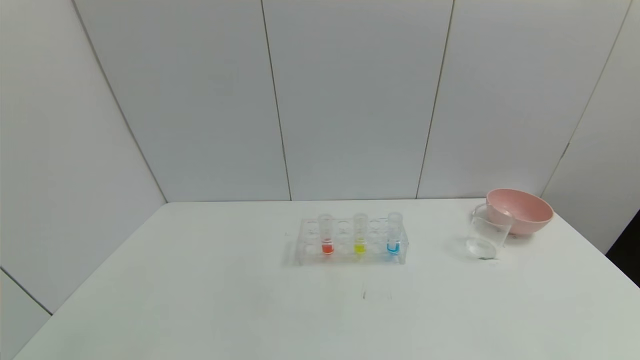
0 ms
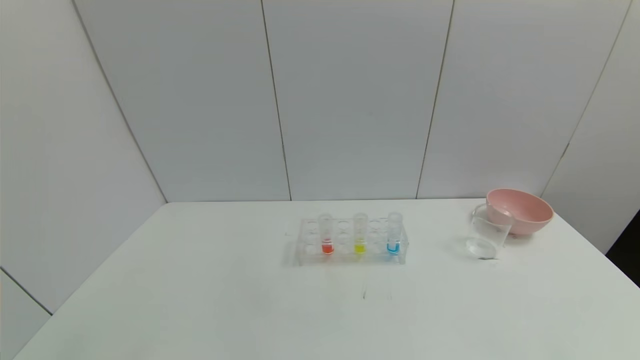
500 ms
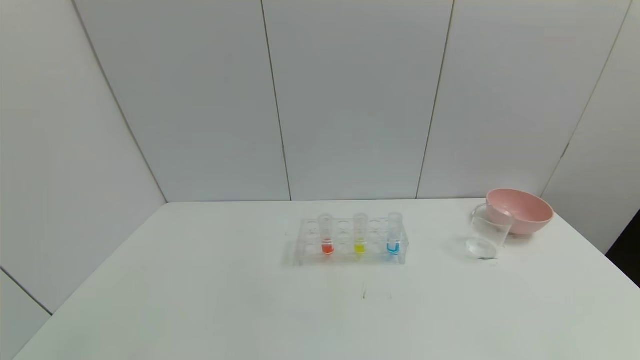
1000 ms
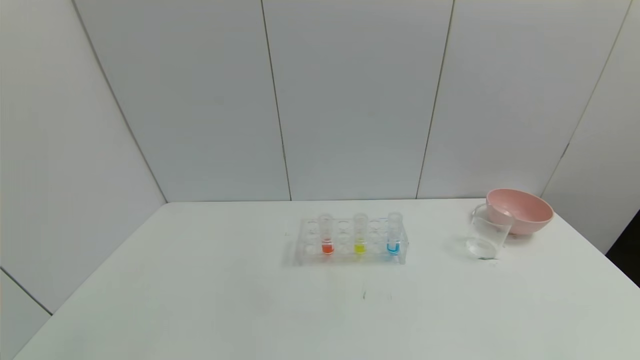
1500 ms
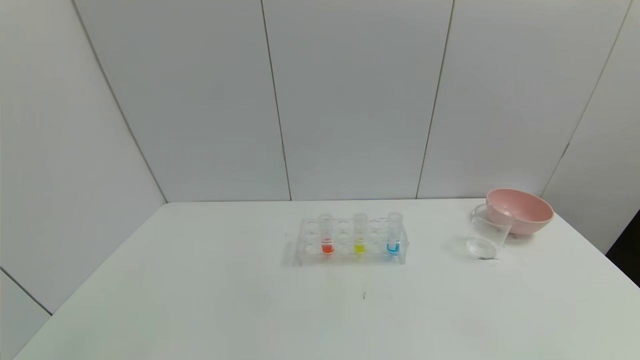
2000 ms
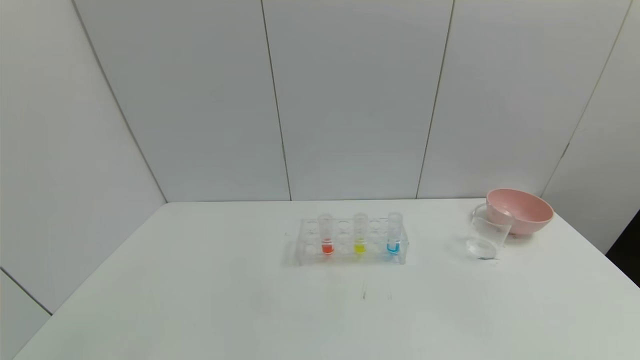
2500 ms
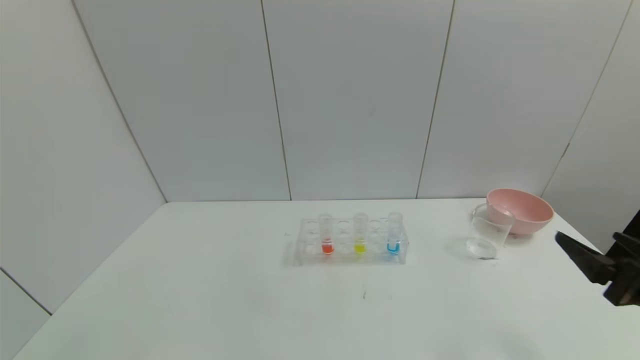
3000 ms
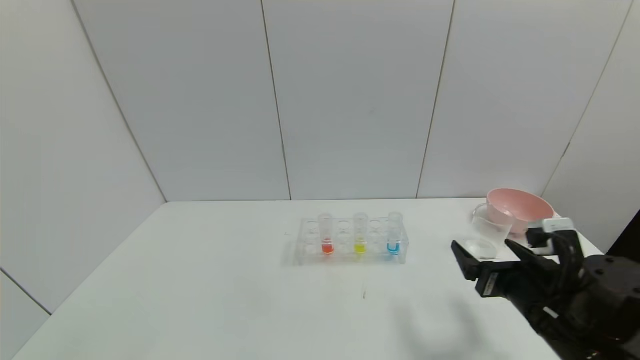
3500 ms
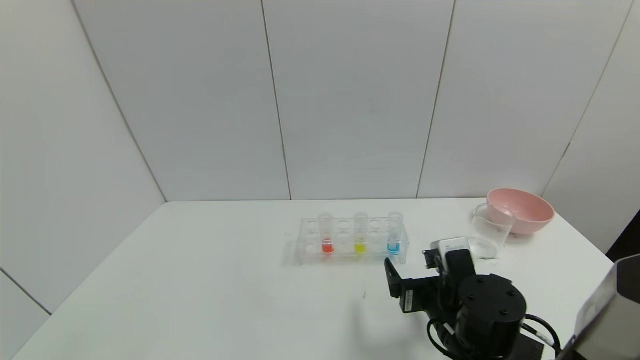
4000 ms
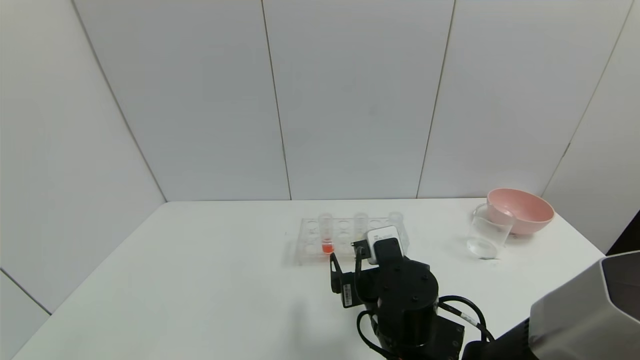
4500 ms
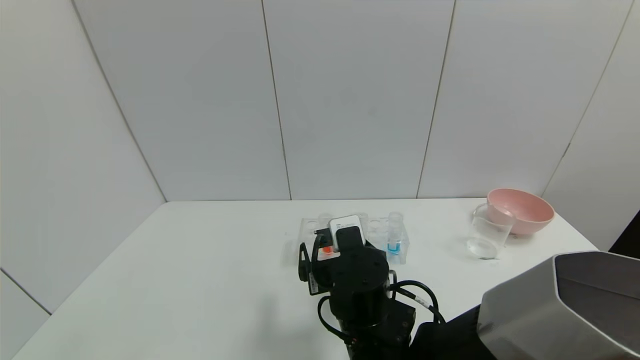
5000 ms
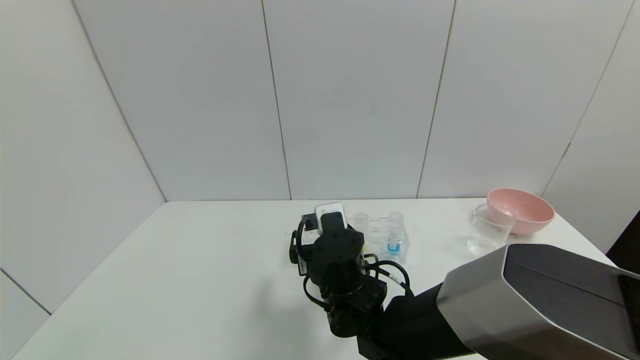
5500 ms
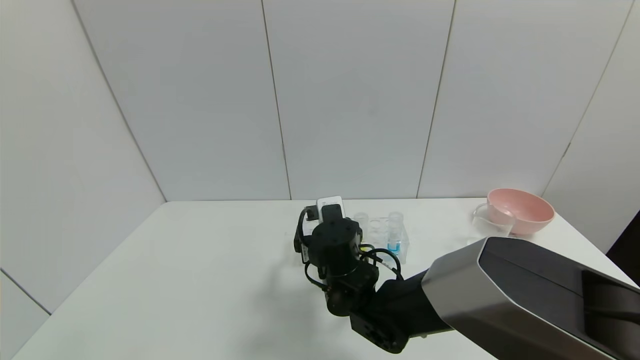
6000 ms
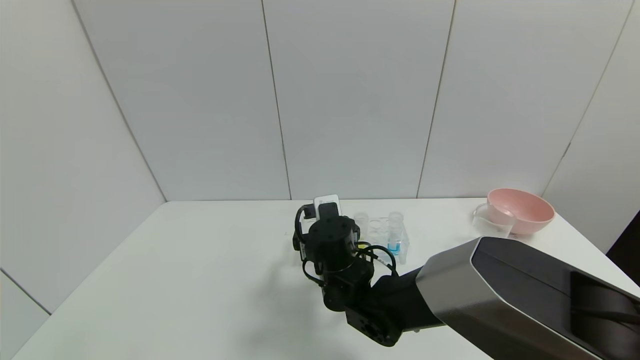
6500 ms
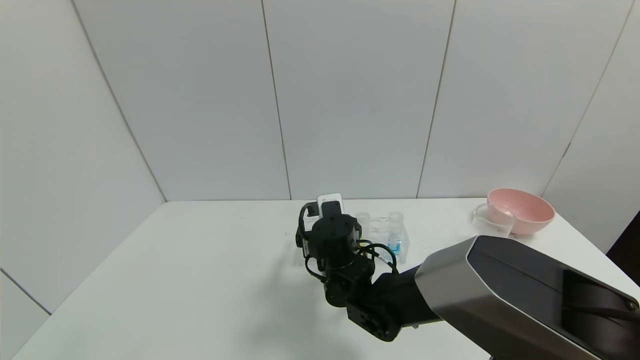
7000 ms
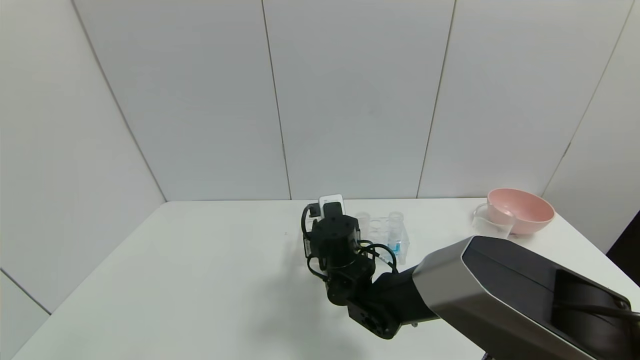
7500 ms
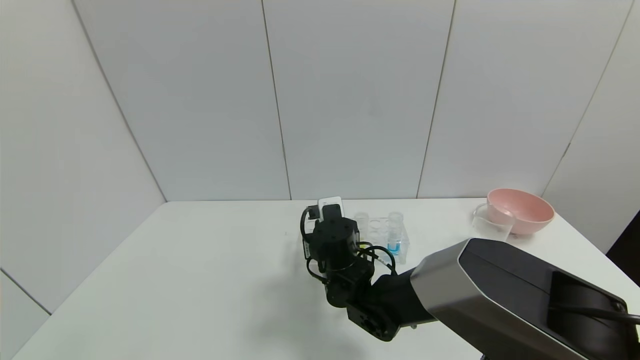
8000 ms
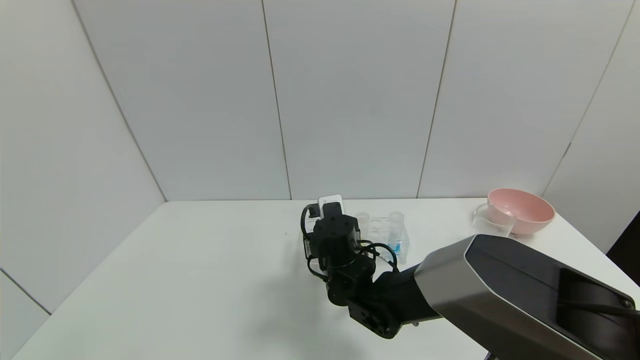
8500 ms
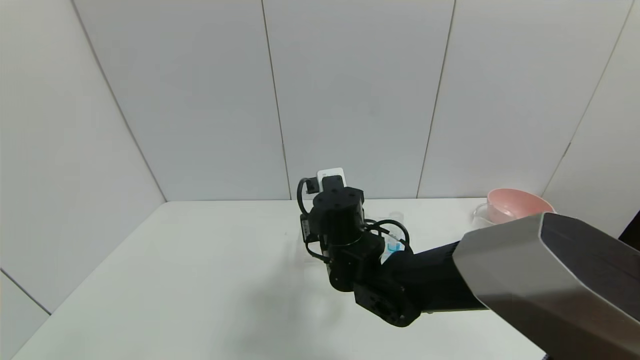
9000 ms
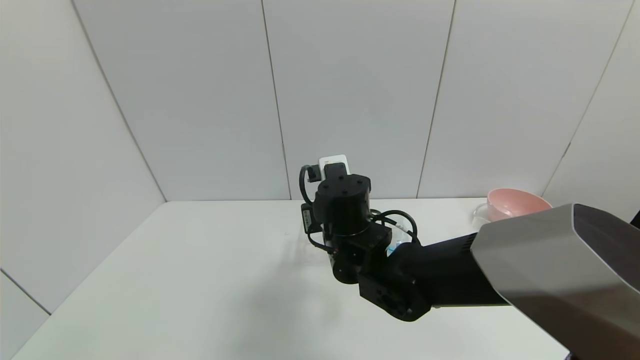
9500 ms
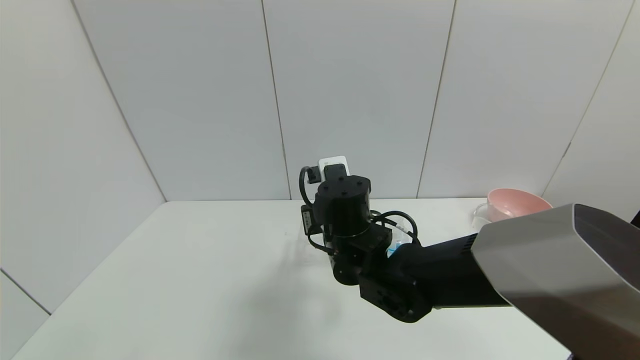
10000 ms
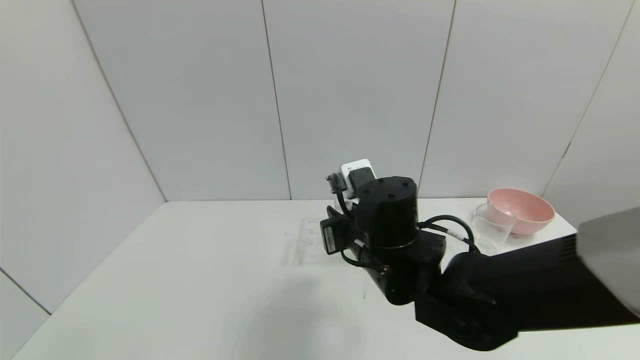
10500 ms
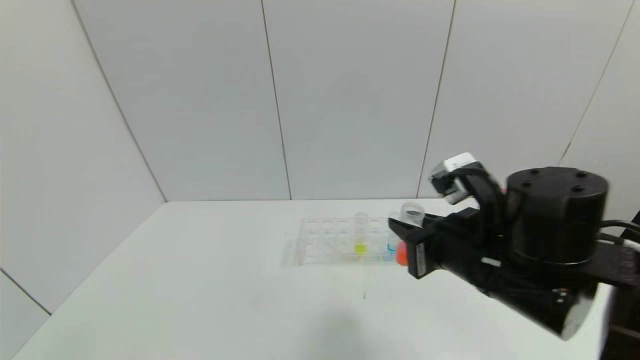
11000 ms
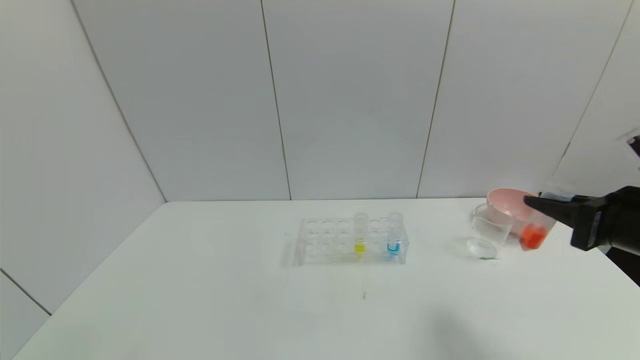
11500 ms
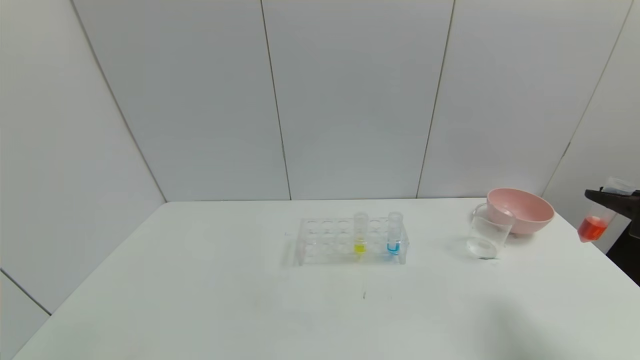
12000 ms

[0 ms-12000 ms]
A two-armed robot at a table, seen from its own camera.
Task of the whole recording: pick up the test tube with red pigment and the test tube with blue pigment by grippers and pour them into the container.
Step, 0 ms to 11000 ms: Pick up the test tube containing the red reagent with right gripper.
2000 ms to 4000 ms: The right gripper moves forward and to the left, about 35 cm.
4000 ms to 6000 ms: The right gripper is displaced to the left and forward by approximately 15 cm.
6000 ms to 8000 ms: The right gripper closes.
8000 ms to 10000 ms: The right gripper goes about 10 cm upward.
10000 ms to 12000 ms: The right gripper goes about 40 cm to the right.

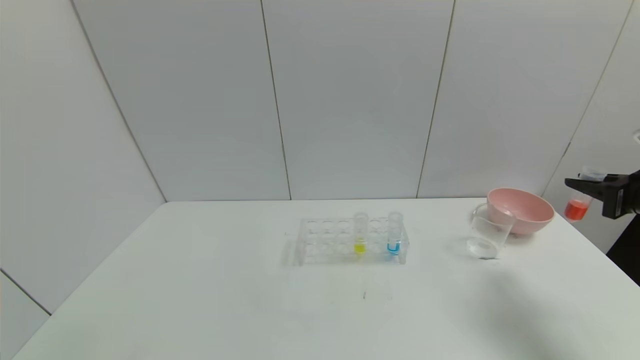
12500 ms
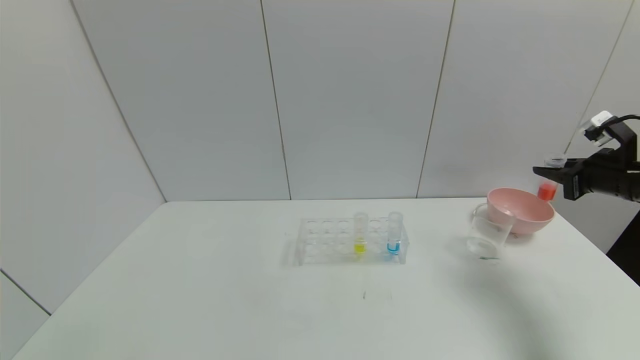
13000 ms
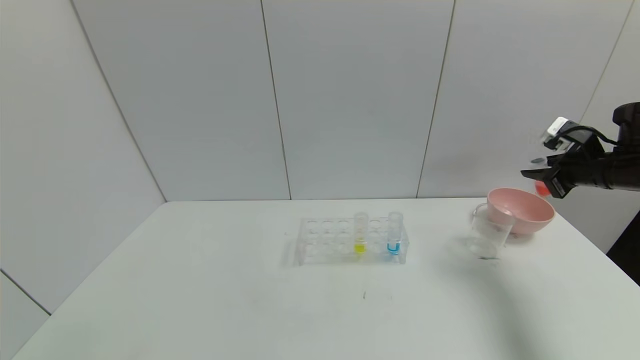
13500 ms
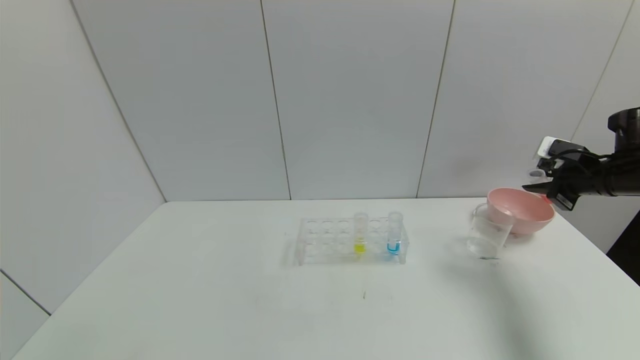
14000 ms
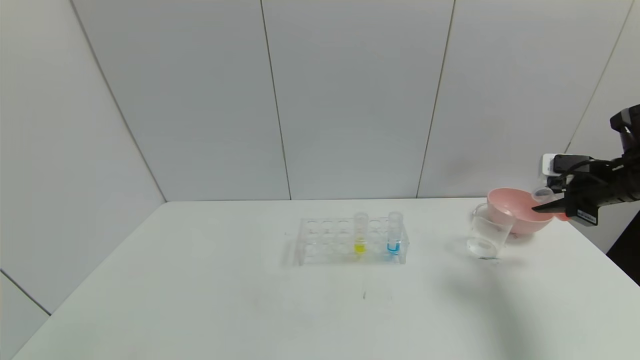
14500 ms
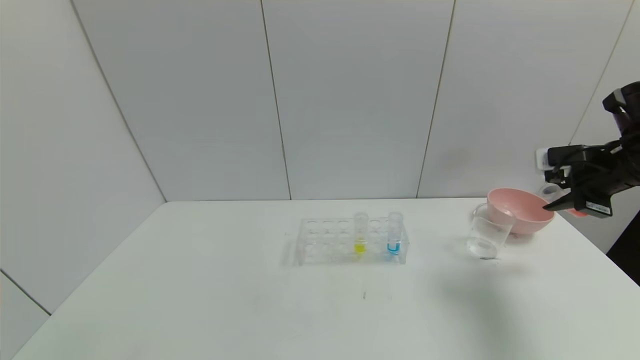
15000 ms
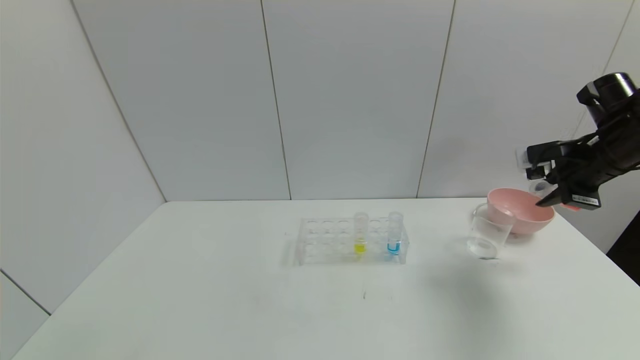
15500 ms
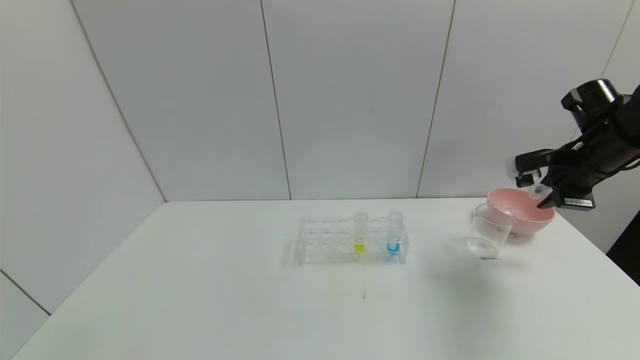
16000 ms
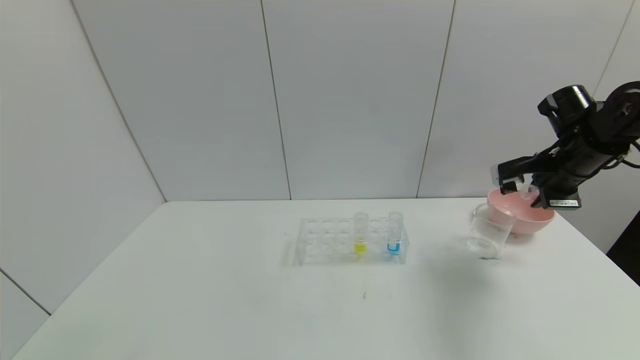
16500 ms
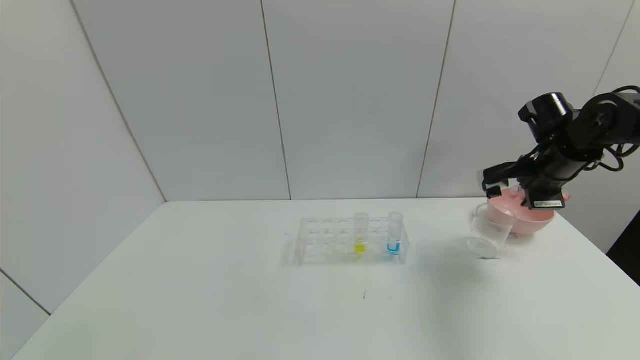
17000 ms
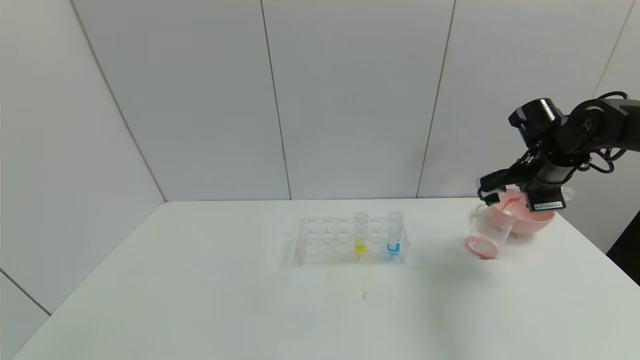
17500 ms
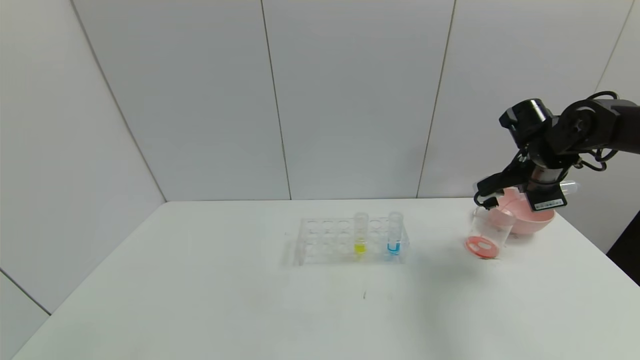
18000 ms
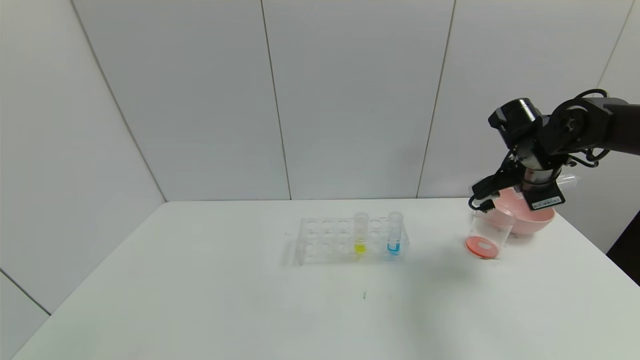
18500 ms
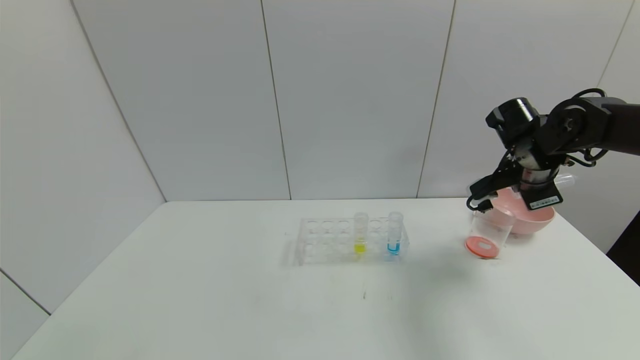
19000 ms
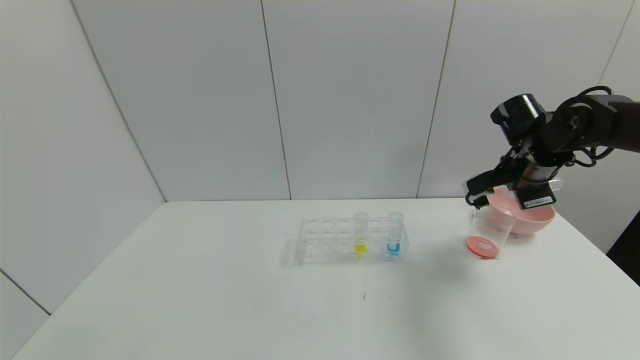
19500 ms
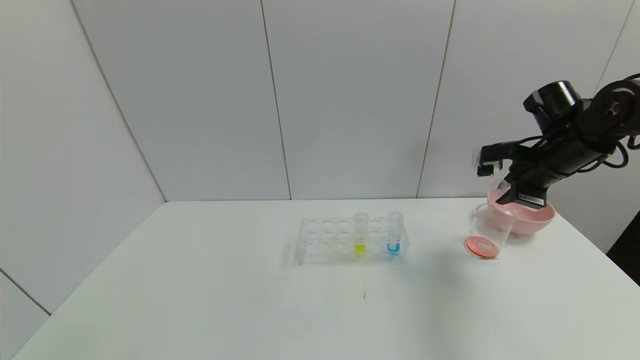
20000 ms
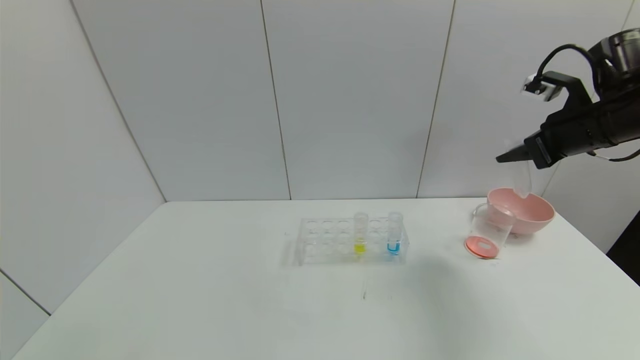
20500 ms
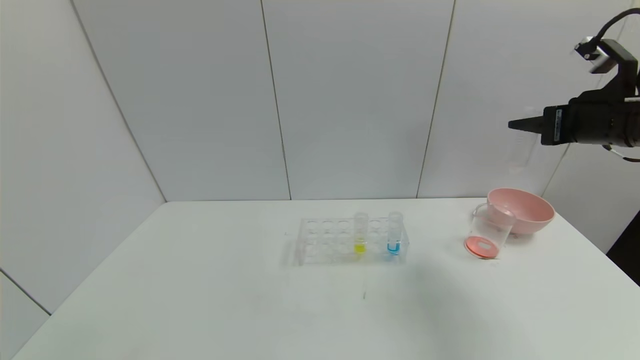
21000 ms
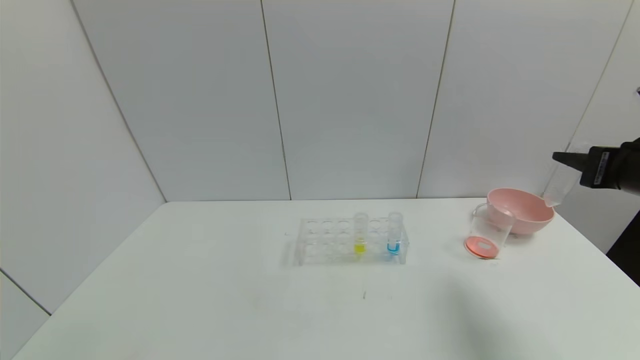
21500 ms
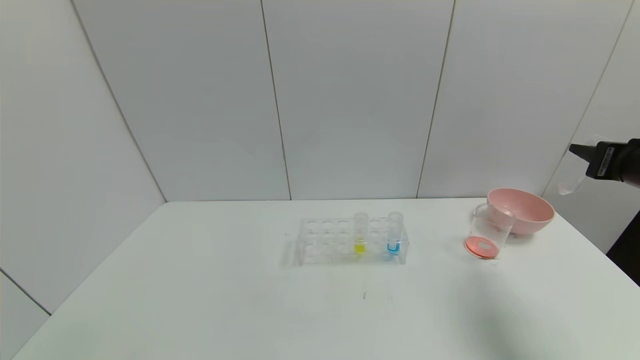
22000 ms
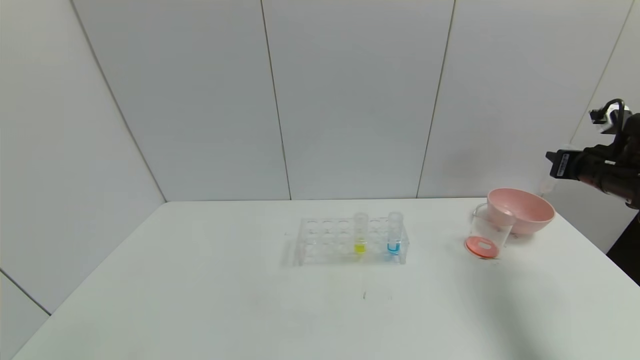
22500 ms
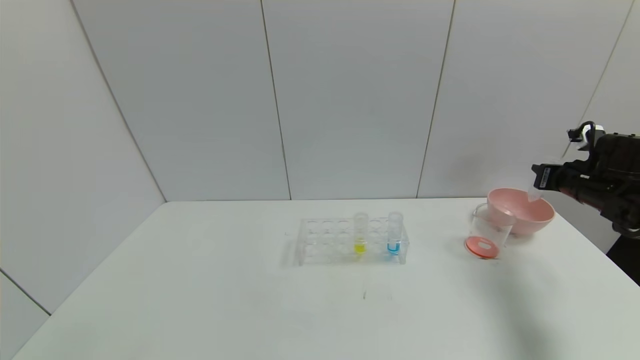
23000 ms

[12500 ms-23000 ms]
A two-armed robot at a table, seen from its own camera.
Task of the whole recording: pick up the test tube with red pigment and the test tube with blue pigment by grippers and pour them into the container.
Step, 12500 ms to 21000 ms: Pour the red reagent into the graduated cylinder with right gripper.
12500 ms to 14500 ms: The right gripper heads forward, covering about 5 cm.
14500 ms to 16500 ms: The right gripper goes some 5 cm to the left.
16500 ms to 19000 ms: The right gripper shifts roughly 5 cm to the left.
19000 ms to 21000 ms: The right gripper goes about 10 cm upward and backward.
21000 ms to 23000 ms: The right gripper goes roughly 20 cm downward, to the right and forward.
